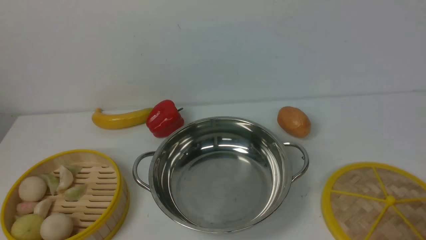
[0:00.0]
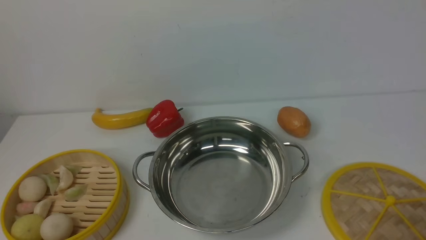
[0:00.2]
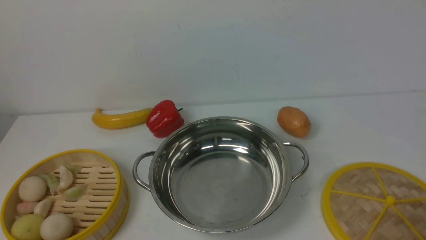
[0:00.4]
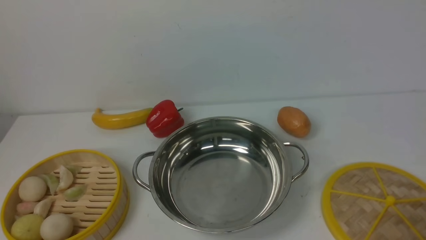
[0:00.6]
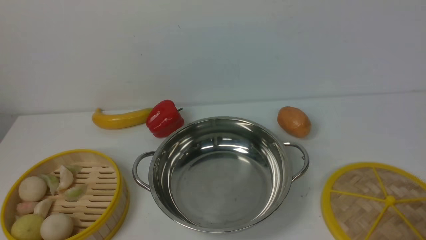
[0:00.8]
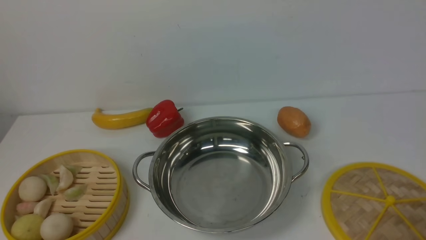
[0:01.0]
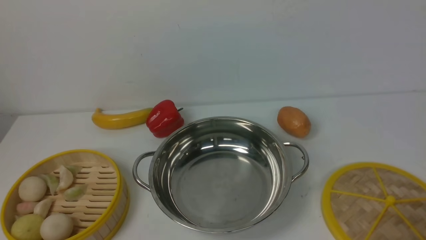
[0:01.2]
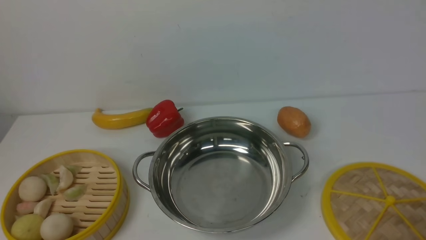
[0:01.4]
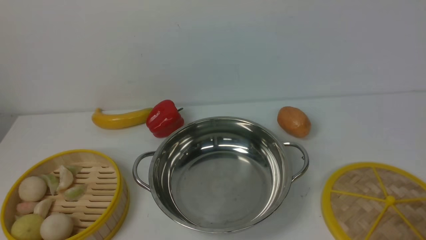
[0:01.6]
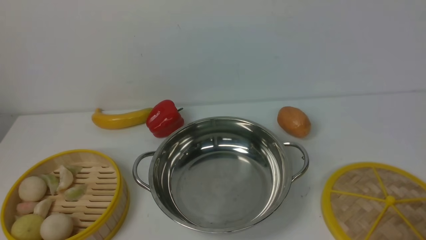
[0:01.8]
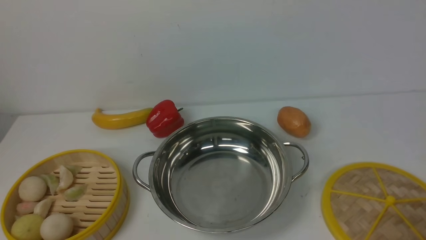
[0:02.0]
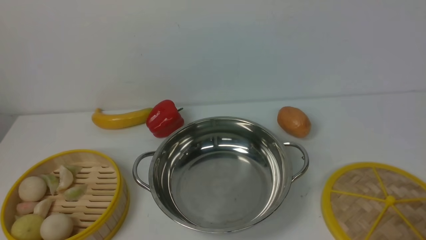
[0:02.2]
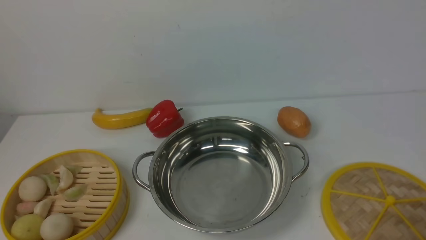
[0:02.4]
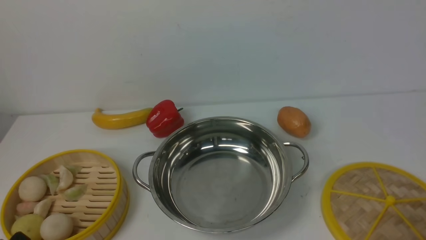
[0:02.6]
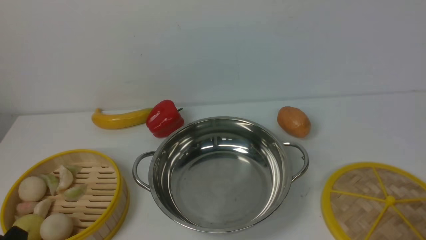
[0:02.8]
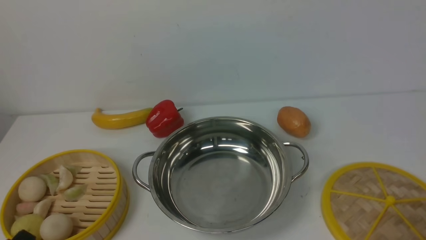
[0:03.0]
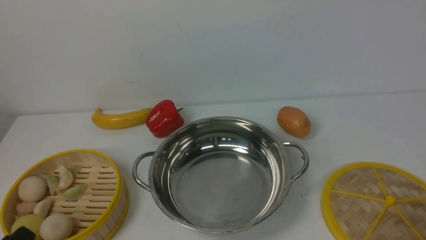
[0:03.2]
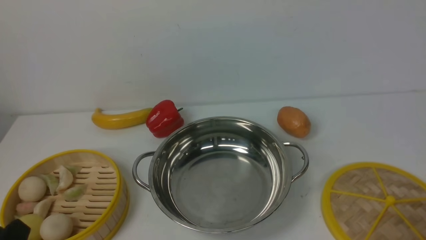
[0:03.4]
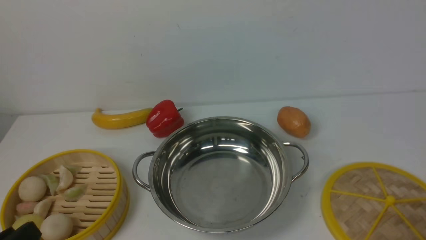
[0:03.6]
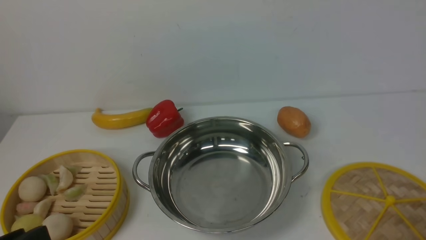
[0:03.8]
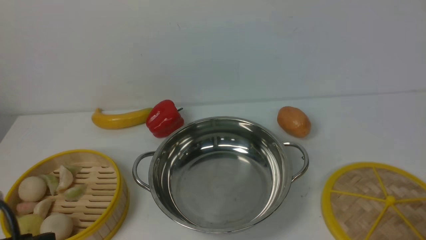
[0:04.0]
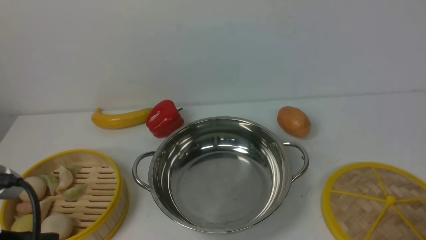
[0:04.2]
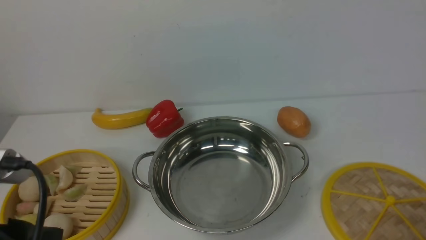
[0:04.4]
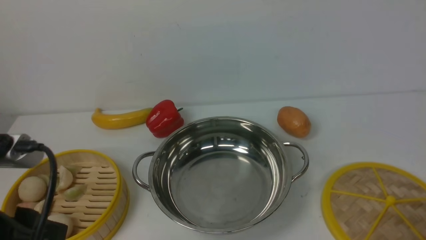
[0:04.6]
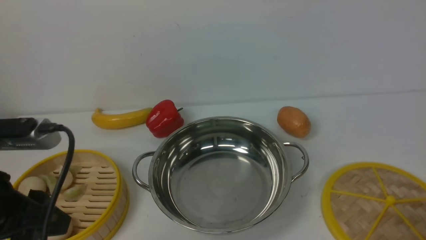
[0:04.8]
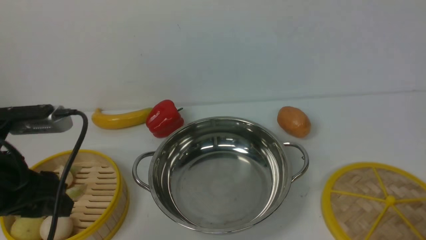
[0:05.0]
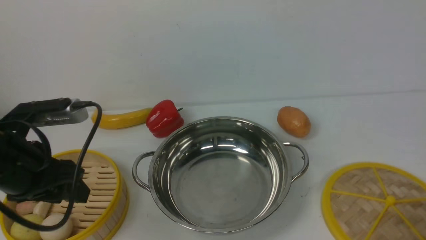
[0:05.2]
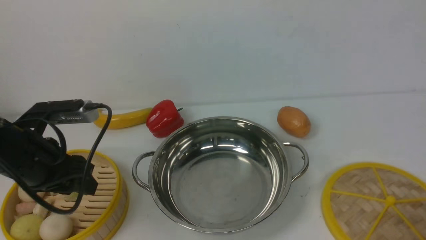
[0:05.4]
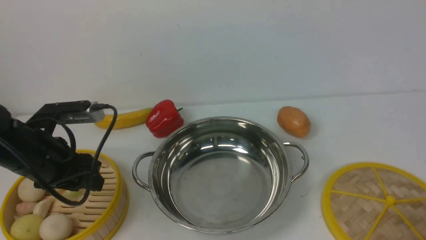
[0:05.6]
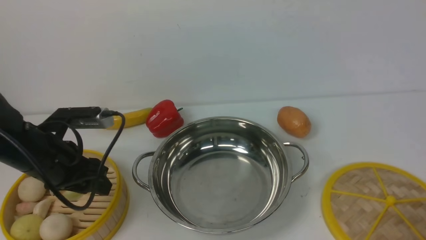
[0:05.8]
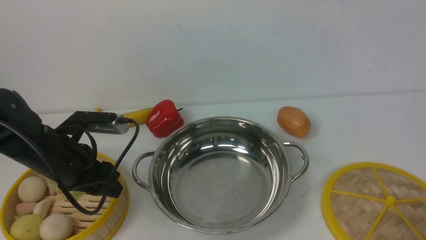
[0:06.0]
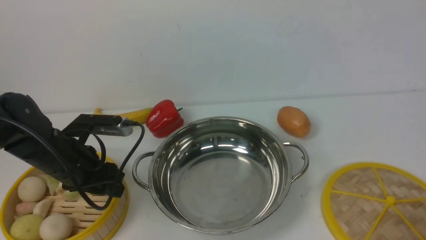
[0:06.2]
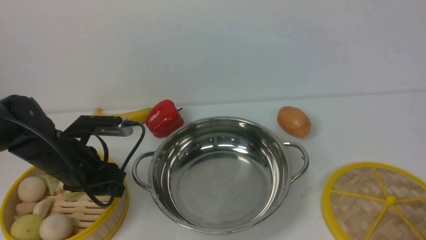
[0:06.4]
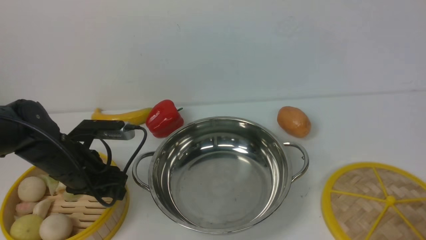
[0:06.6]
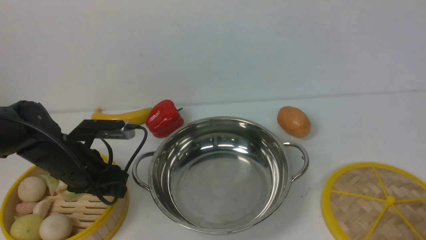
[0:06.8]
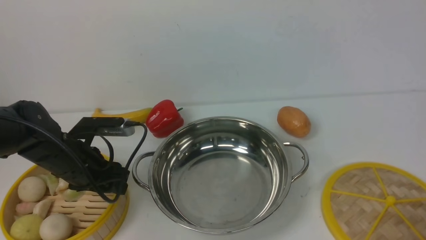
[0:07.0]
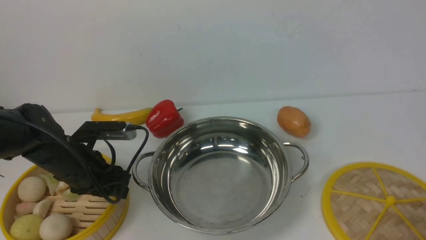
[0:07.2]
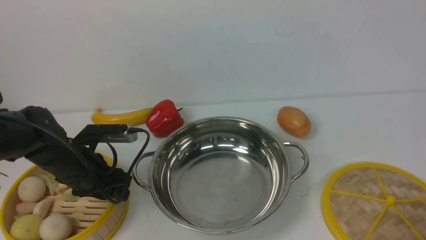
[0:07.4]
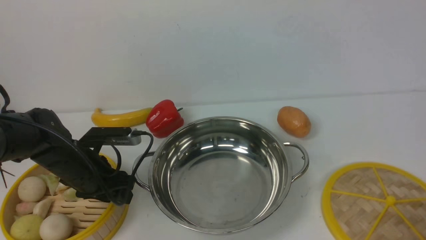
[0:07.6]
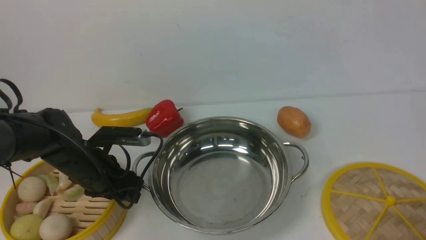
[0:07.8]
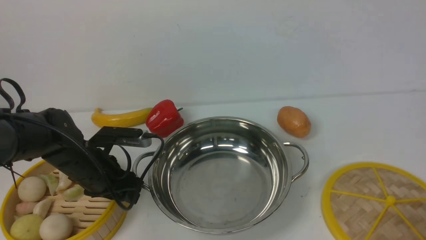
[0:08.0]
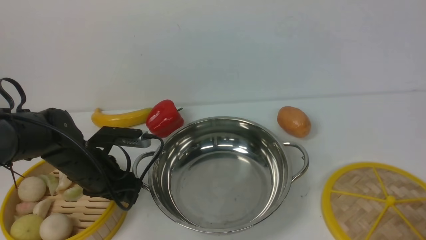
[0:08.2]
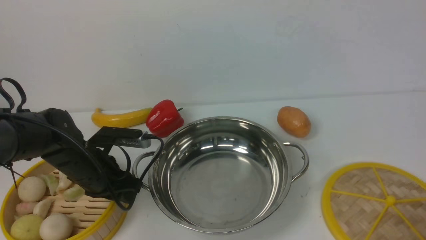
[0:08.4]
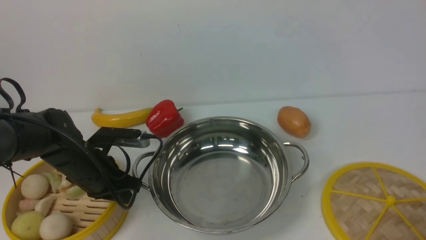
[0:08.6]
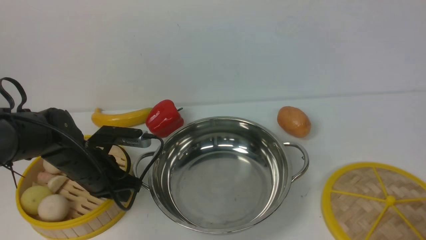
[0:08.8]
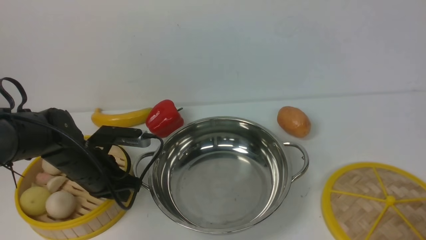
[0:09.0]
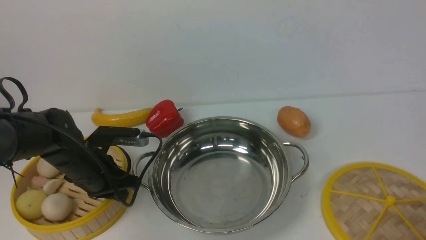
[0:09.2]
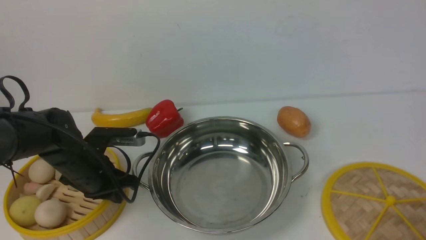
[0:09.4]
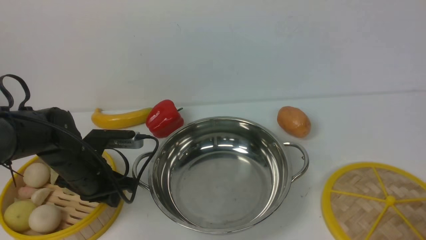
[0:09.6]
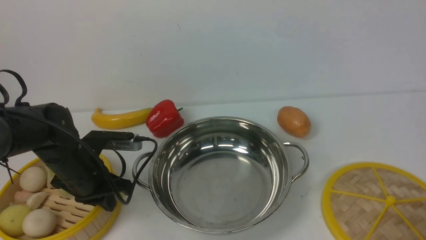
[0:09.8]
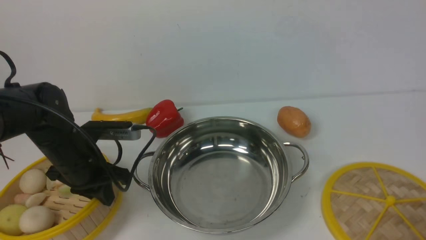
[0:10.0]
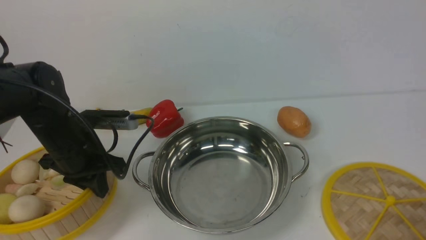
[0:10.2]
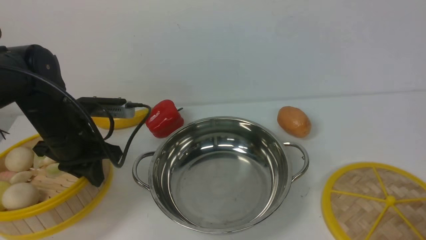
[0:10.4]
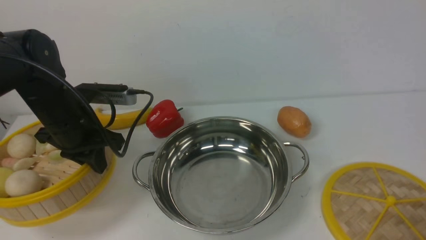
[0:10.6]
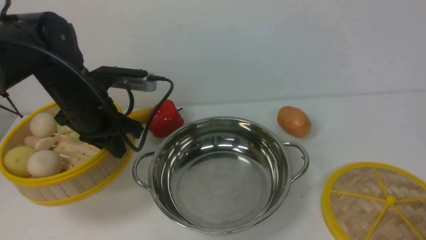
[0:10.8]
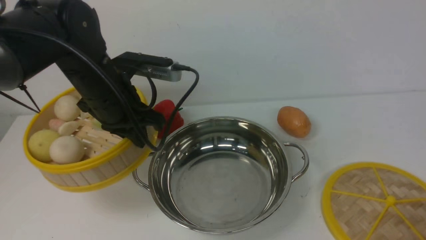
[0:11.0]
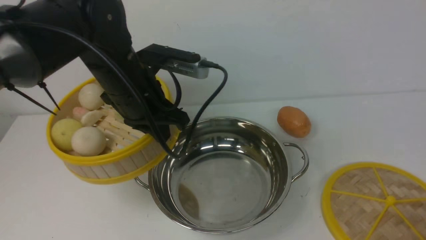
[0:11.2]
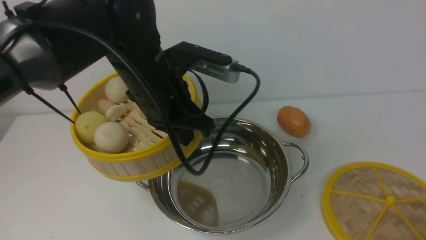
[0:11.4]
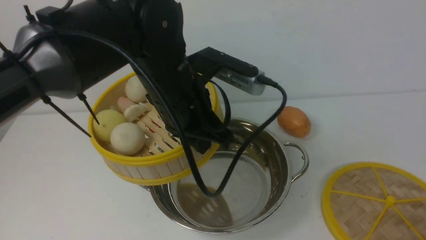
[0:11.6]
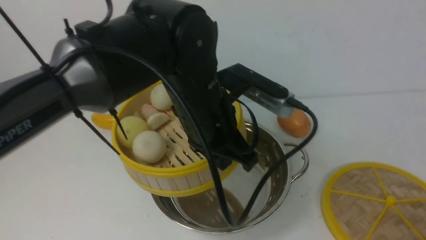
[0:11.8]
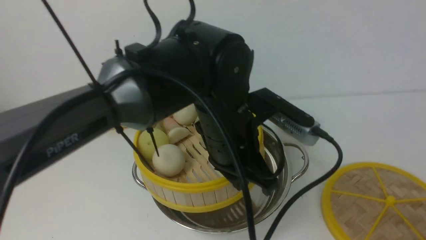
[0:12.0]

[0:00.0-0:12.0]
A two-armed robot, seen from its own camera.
Task of the whole recording: place the steamer in the pot on the white table, and put the lid on the steamer.
Step, 0:00.0 to 0:10.2: use the left arm to lift the steamer closest to it.
0:03.0 to 0:04.4: The left gripper moves upward, about 10 cm.
0:04.4 to 0:06.0: The left gripper travels forward and downward by approximately 20 cm.
0:06.0 to 0:07.6: The left gripper heads downward, covering some 5 cm.
0:07.6 to 0:09.0: The left gripper closes its fingers.
0:09.0 to 0:10.4: The left gripper travels upward by roughly 5 cm.
0:10.4 to 0:12.0: The left gripper heads to the right, covering roughly 20 cm.

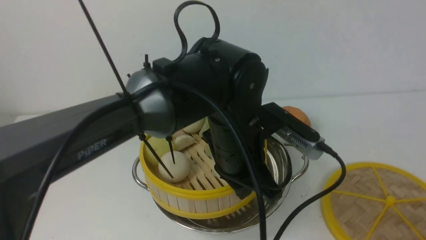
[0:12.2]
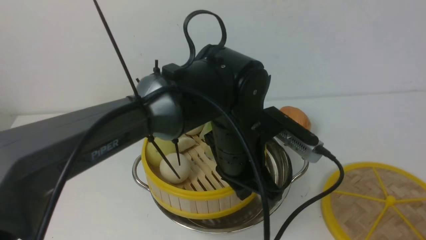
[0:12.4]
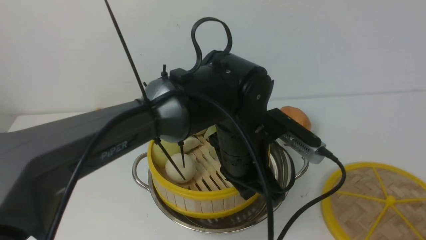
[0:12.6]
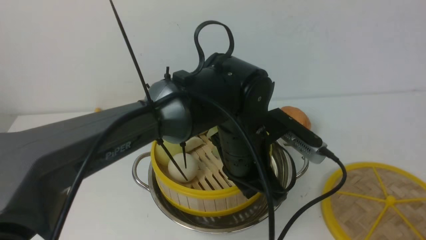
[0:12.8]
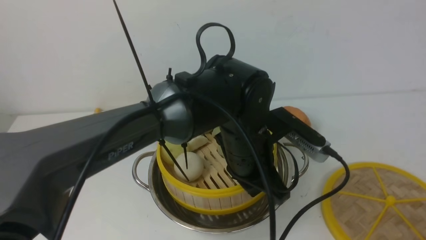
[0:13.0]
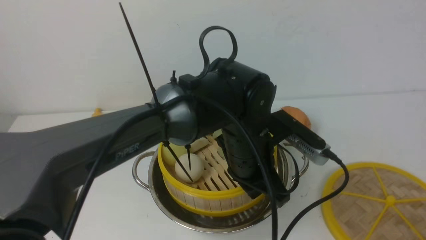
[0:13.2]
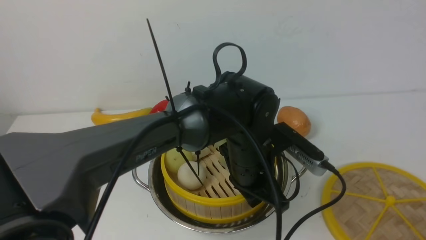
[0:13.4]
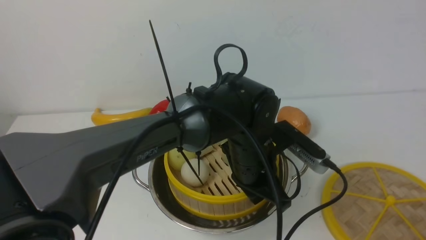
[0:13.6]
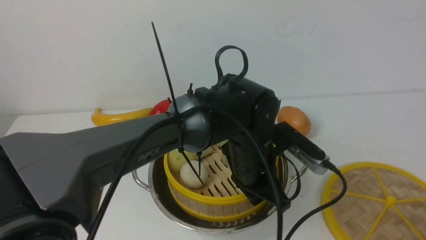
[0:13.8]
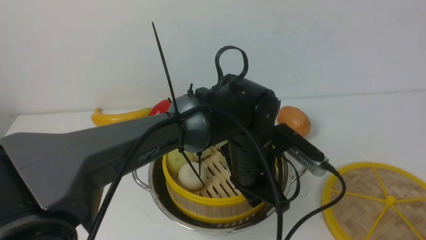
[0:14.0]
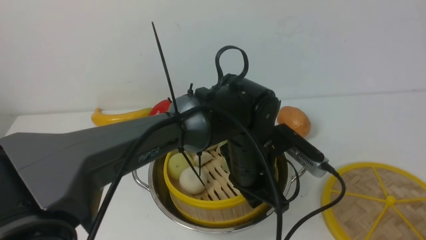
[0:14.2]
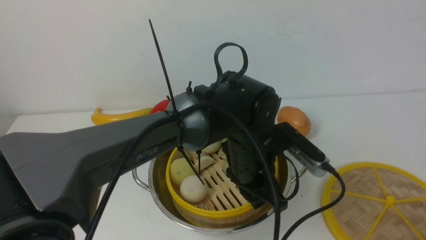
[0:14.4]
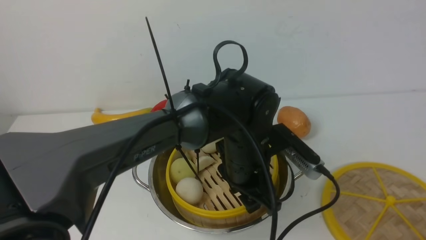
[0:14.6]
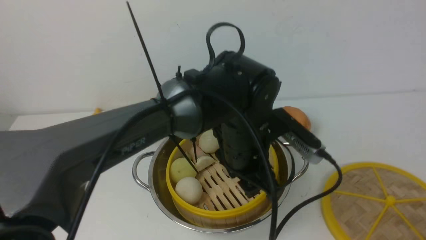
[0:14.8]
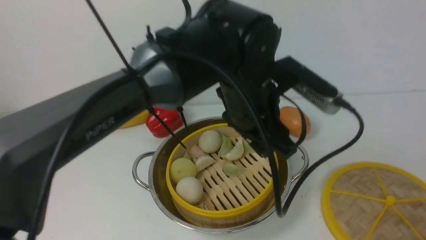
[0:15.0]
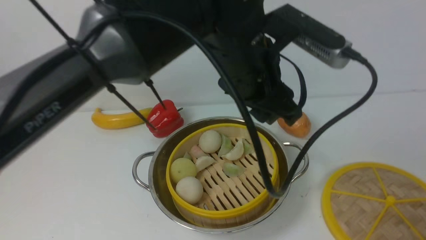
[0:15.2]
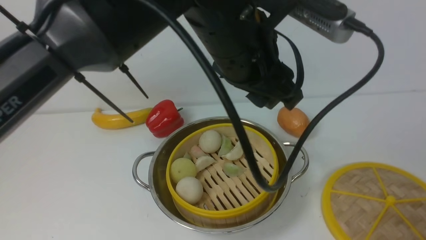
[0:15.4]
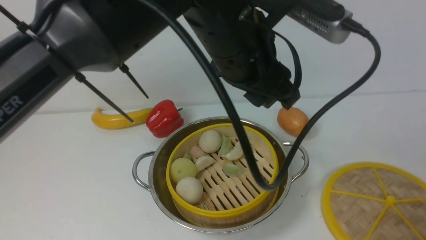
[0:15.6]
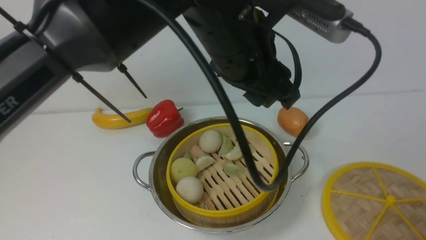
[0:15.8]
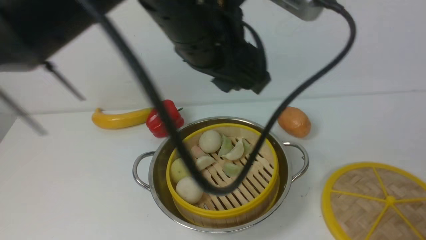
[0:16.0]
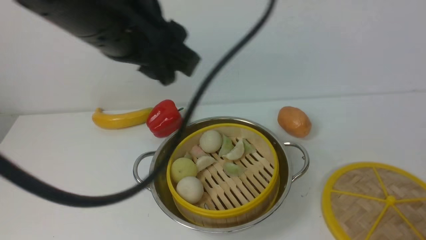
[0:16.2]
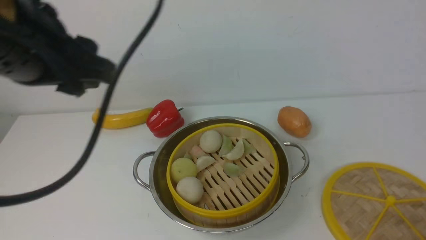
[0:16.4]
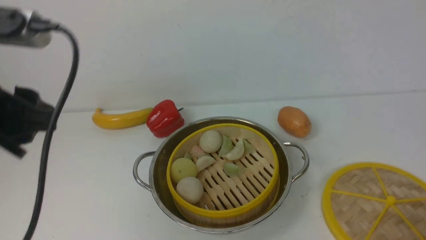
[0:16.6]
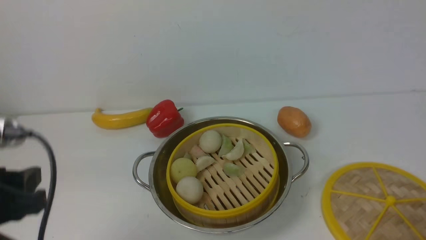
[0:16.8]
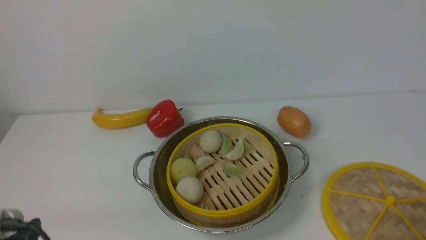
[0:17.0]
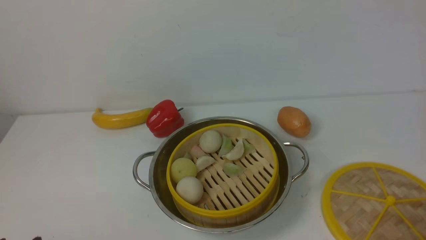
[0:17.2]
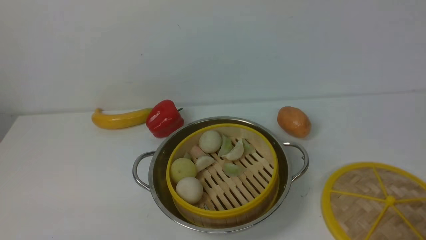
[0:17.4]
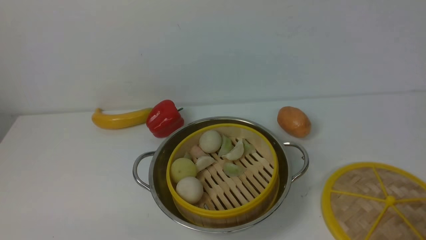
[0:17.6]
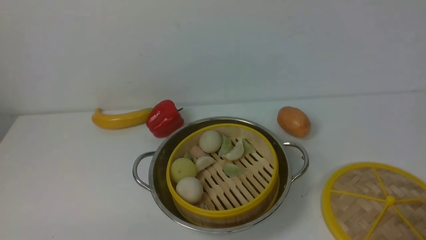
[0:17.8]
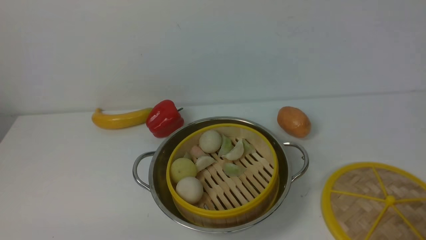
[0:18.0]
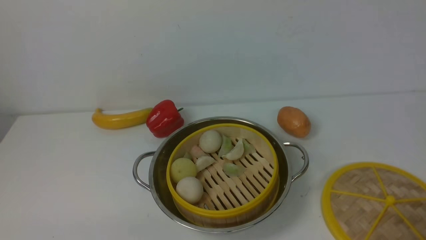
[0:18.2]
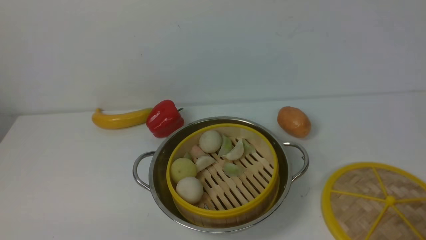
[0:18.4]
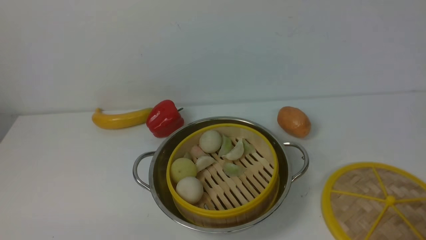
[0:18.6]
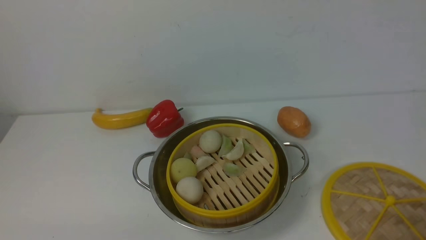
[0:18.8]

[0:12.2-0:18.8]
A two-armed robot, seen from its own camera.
Task of the whole recording: place the steamer in the pot on the white table, and put the lid on the steamer.
Step, 0:12.2 to 0:15.0: use the left arm to put the steamer into the iron steamer pot in the middle.
0:12.2 to 0:13.8: The left gripper is displaced downward by about 5 cm.
0:13.8 to 0:15.4: The left gripper moves upward, about 15 cm, and opens its fingers.
0:15.4 to 0:17.2: The left gripper heads to the left, backward and downward, covering approximately 40 cm.
